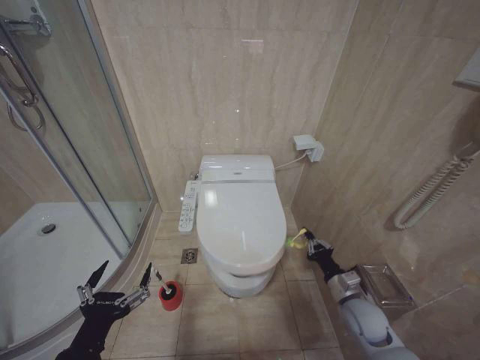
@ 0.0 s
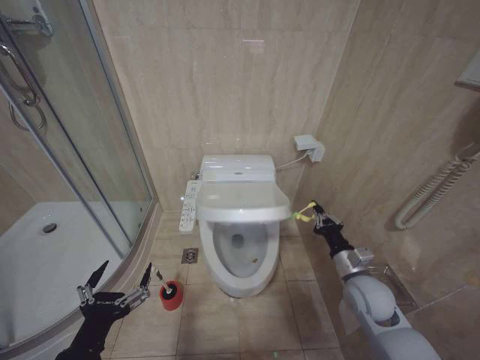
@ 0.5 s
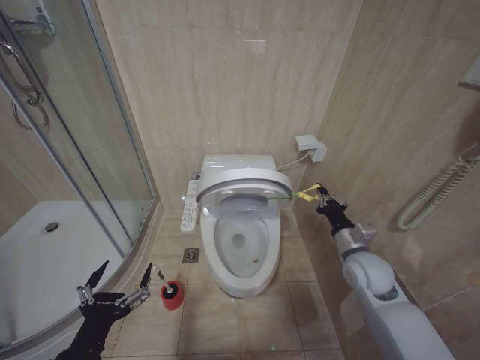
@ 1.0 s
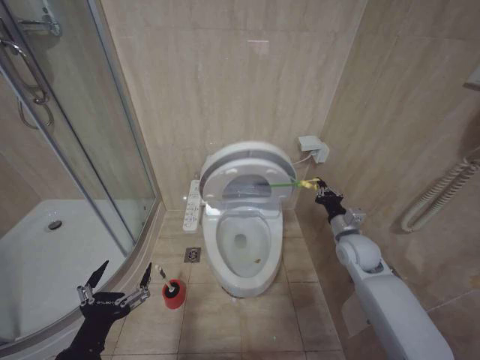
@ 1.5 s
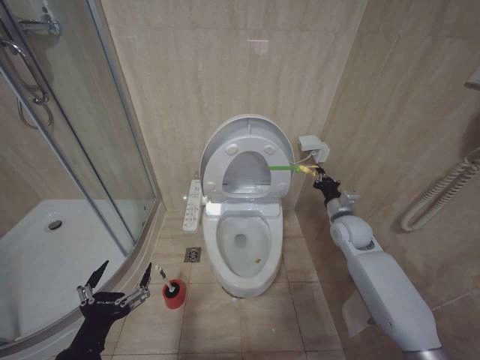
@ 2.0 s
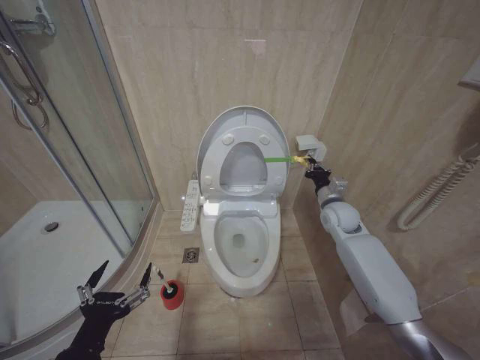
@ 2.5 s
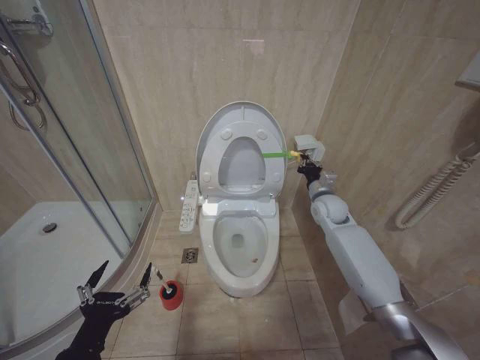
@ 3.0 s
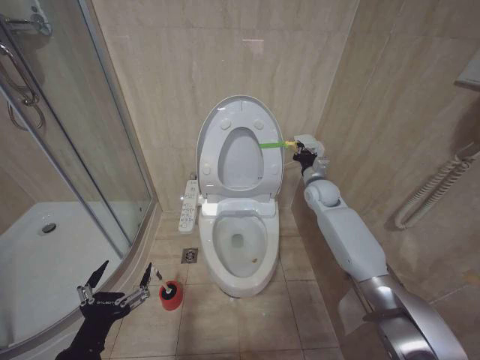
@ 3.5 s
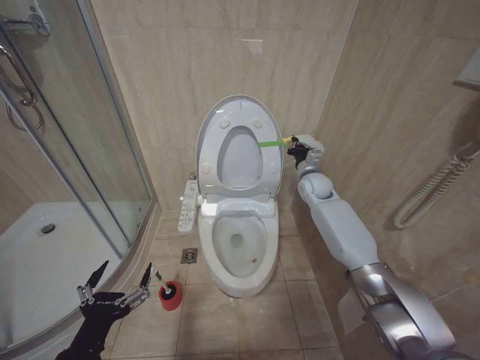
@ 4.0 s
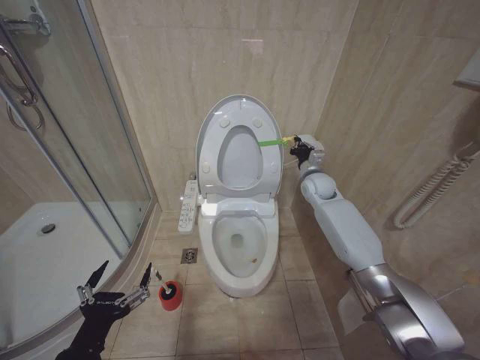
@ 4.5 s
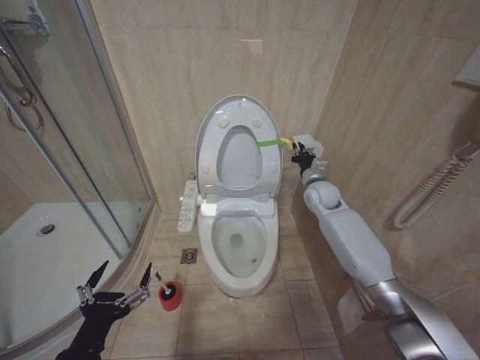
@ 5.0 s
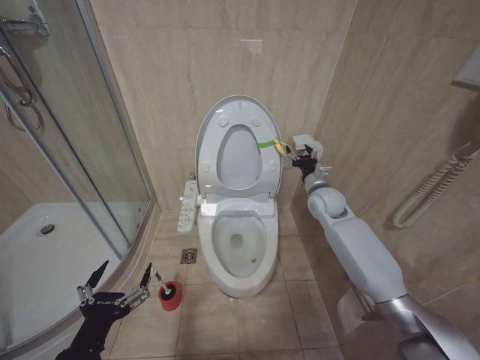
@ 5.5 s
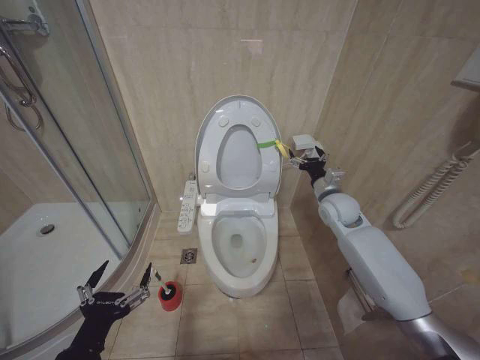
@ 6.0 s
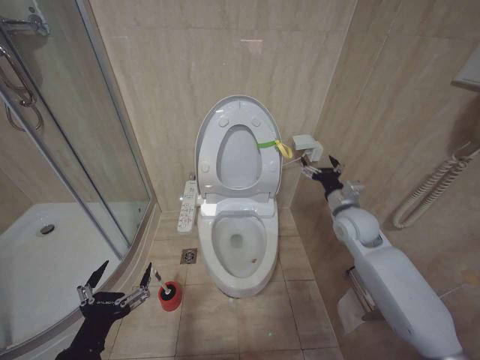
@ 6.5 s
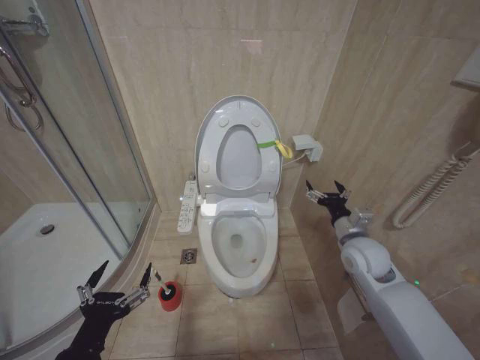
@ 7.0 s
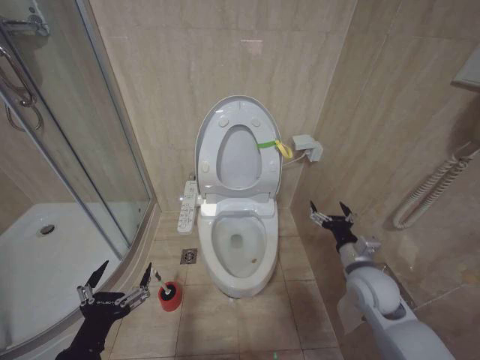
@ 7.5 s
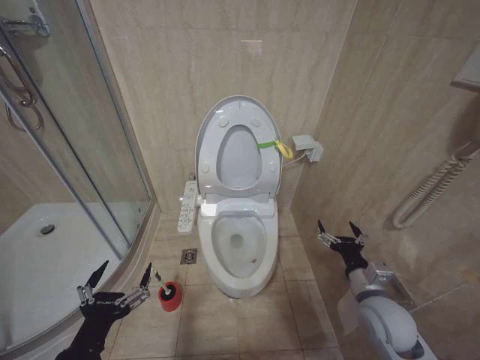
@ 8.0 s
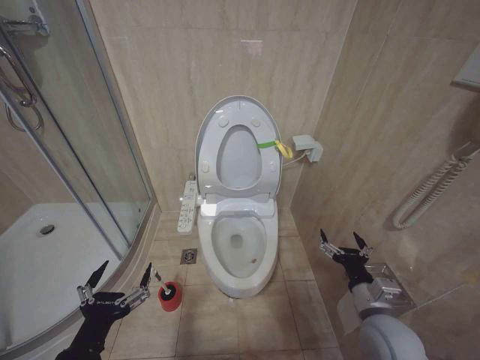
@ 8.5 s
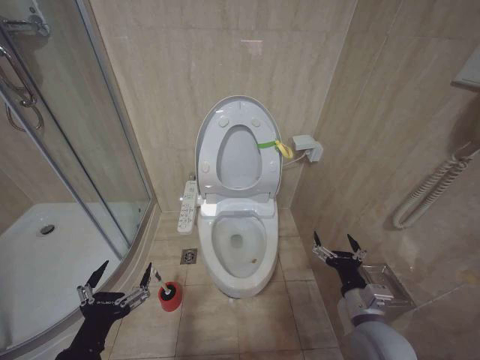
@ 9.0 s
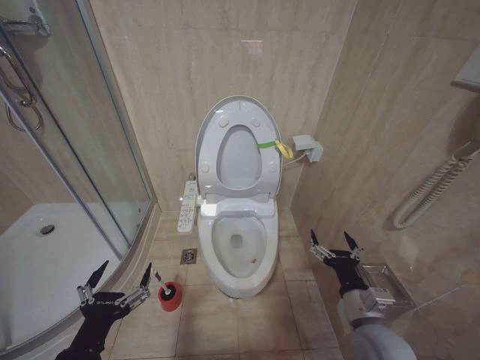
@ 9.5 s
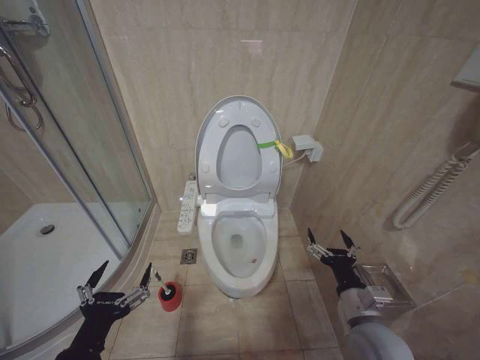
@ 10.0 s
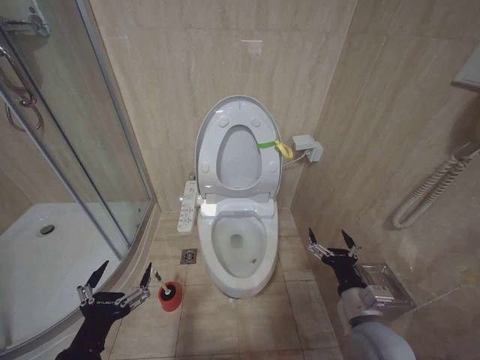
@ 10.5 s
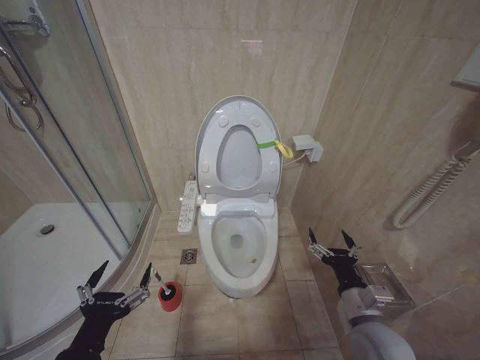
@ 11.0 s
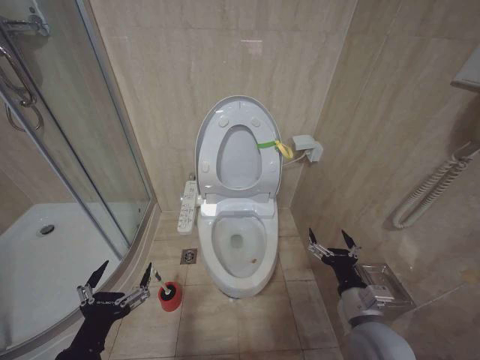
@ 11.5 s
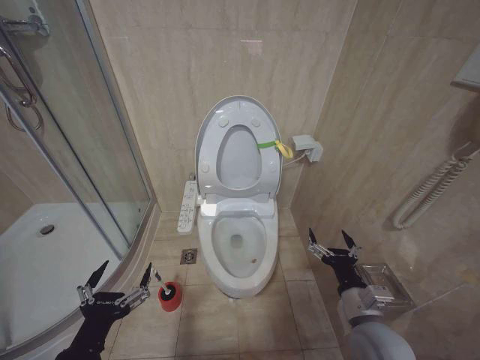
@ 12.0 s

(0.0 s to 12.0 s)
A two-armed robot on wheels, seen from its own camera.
Task of the whole recording: Open the toilet lid, clean the toilet bowl with a toilet brush, close the toilet lid, and flush.
0.0 s - 2.0 s: The right gripper moves forward and upward, roughly 20 cm.
2.0 s - 4.0 s: The right gripper travels forward, upward and to the left by roughly 15 cm.
4.0 s - 6.0 s: The right gripper is displaced backward by some 10 cm, and opens up.
6.0 s - 8.0 s: The right gripper shifts roughly 25 cm backward and downward.
8.0 s - 10.0 s: The right gripper travels backward by about 5 cm.
10.0 s - 12.0 s: Both grippers stay put.

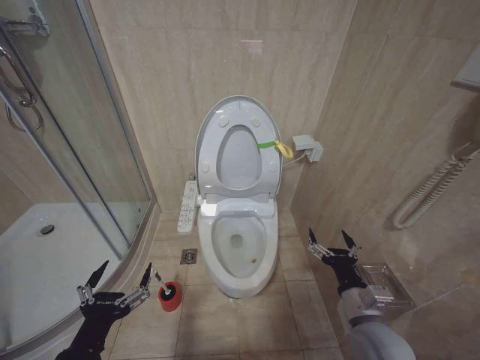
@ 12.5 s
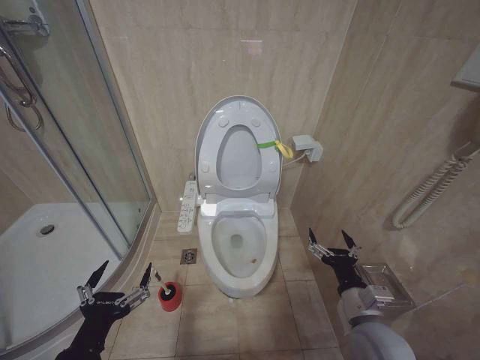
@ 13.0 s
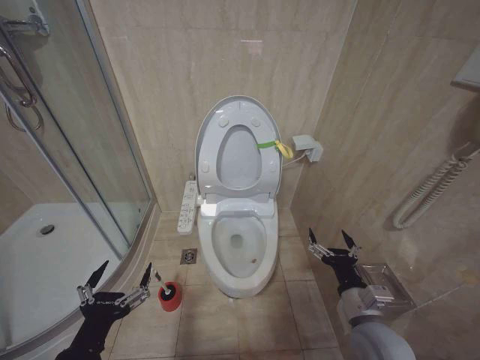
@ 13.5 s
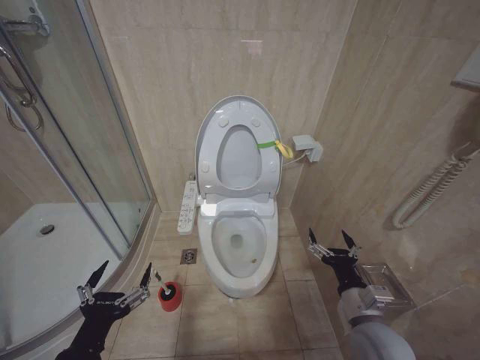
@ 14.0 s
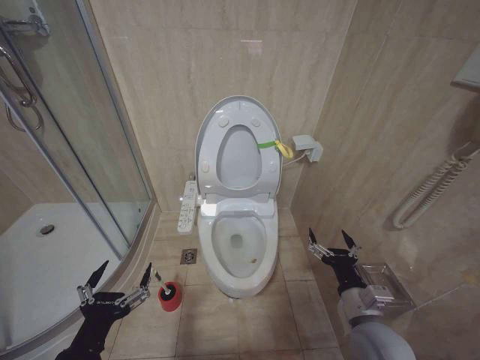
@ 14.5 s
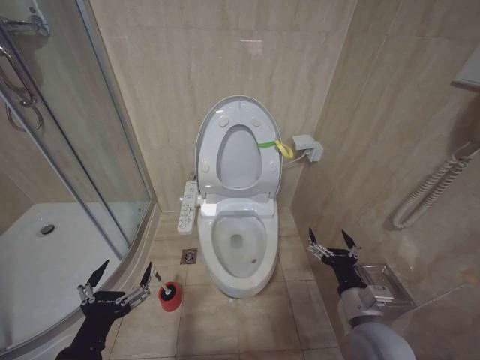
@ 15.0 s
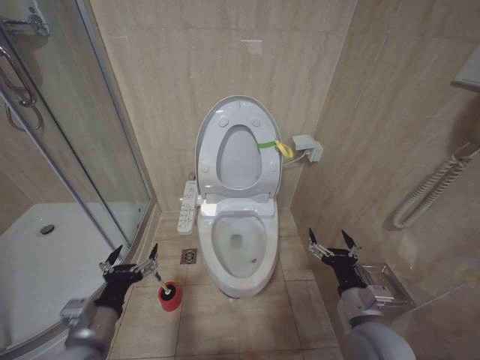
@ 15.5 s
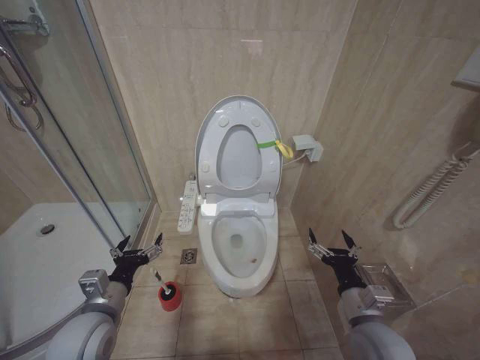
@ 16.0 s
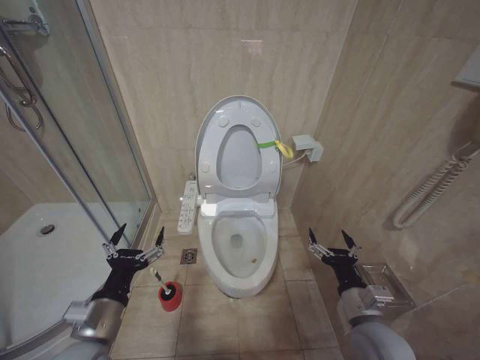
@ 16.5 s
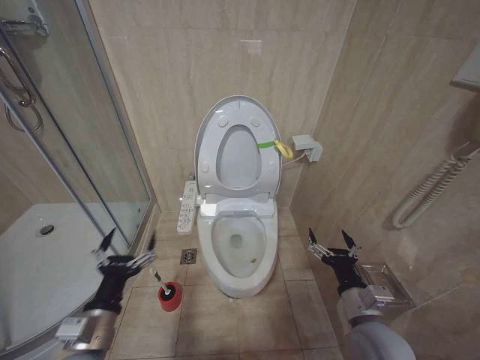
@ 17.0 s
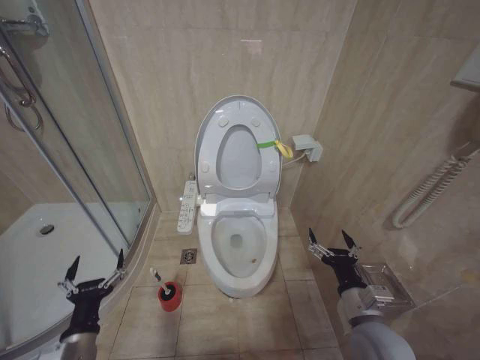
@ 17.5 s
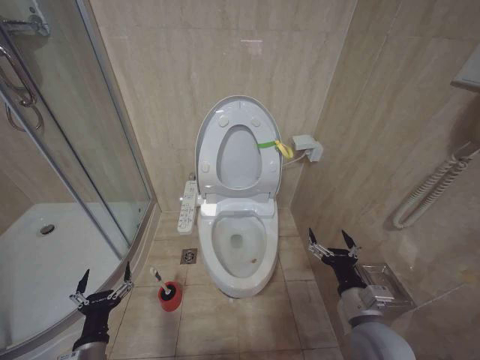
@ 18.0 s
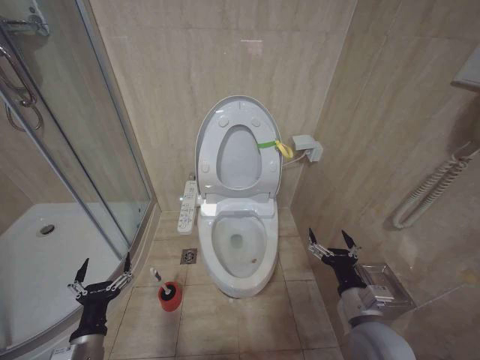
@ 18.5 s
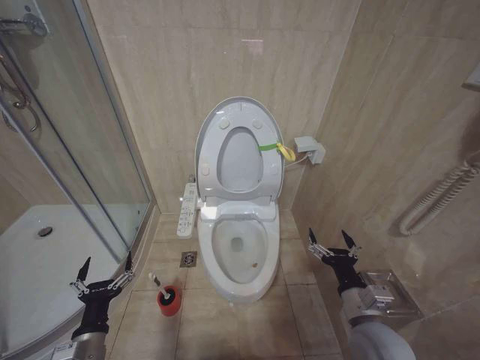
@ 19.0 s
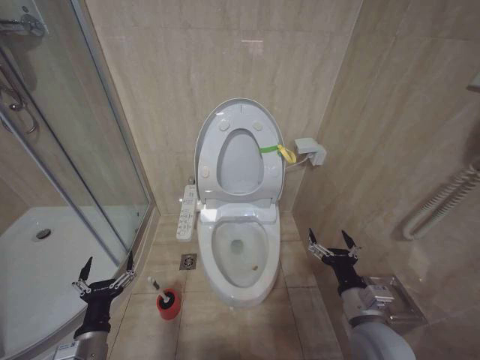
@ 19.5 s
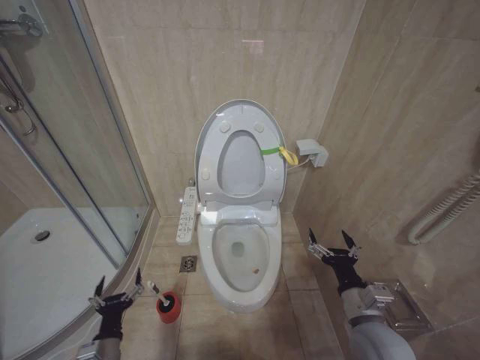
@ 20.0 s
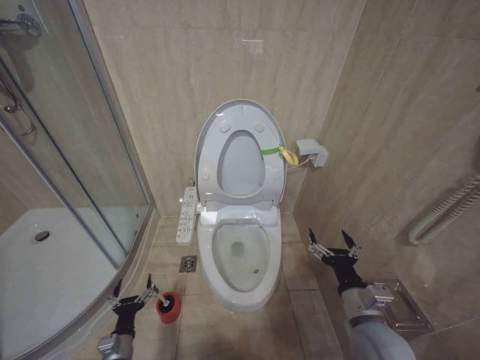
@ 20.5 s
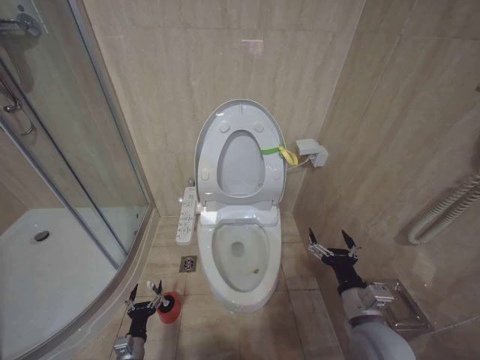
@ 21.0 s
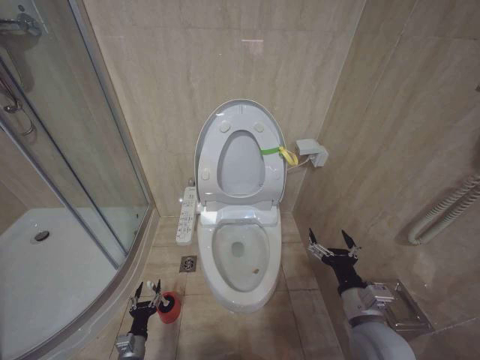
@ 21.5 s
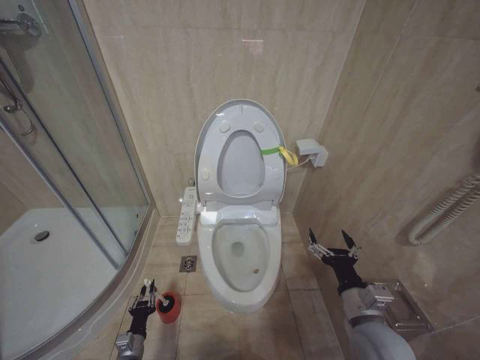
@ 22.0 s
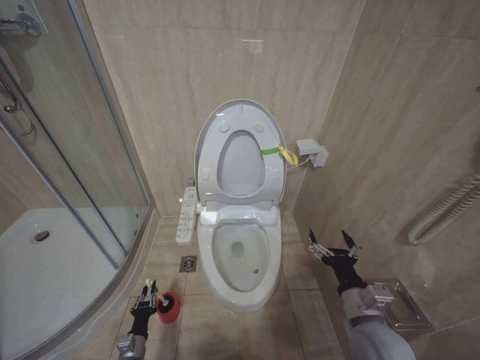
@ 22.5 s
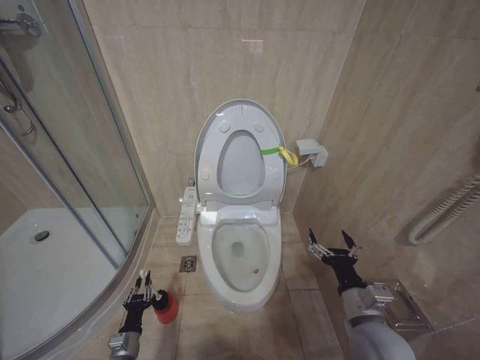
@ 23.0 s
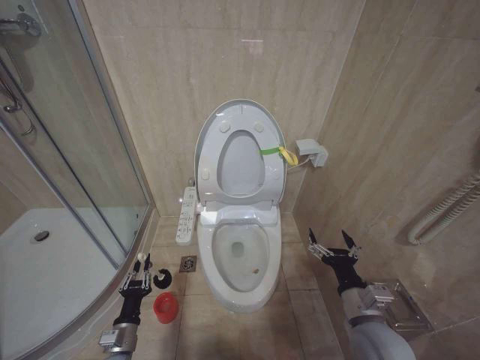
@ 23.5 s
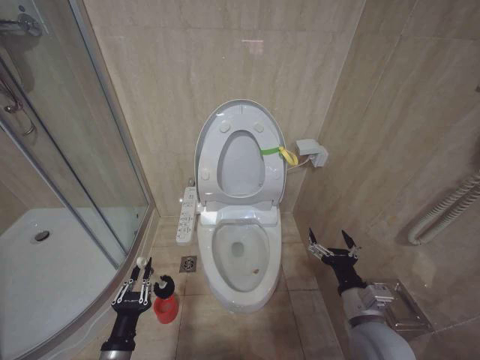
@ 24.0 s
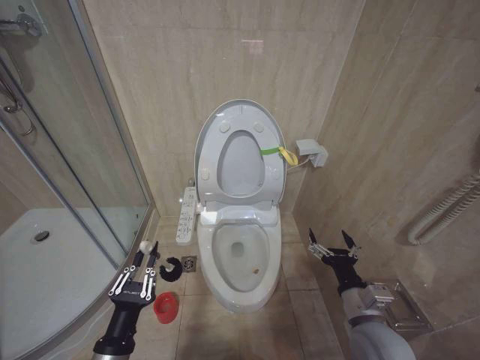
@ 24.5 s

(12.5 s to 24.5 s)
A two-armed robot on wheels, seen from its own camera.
Task of the whole recording: Open the toilet lid, clean the toilet bowl with a toilet brush, close the toilet lid, and flush.
12.5 s - 14.5 s: Both grippers stay put.
14.5 s - 16.5 s: The left gripper goes some 10 cm forward.
16.5 s - 18.5 s: The left gripper heads downward, covering some 10 cm.
18.5 s - 20.5 s: The left gripper heads downward, covering approximately 15 cm.
20.5 s - 22.5 s: The left gripper travels downward by about 10 cm, and closes.
22.5 s - 24.5 s: The left gripper travels upward by about 30 cm.

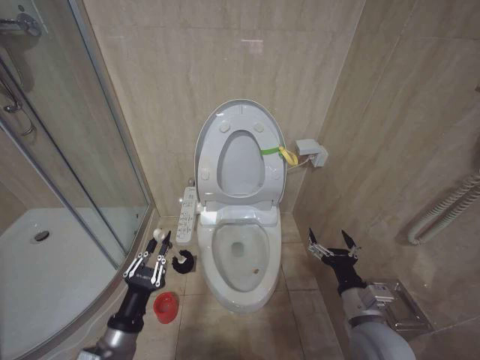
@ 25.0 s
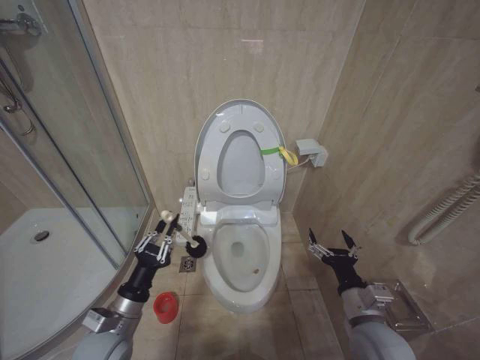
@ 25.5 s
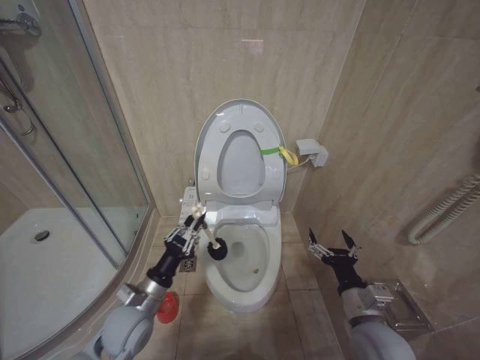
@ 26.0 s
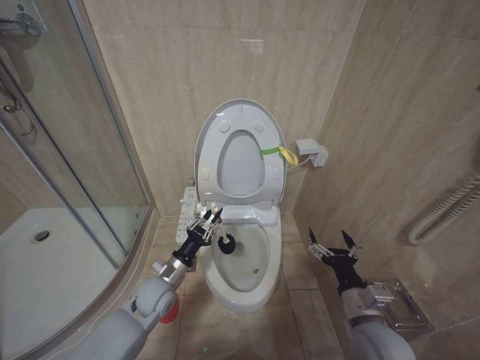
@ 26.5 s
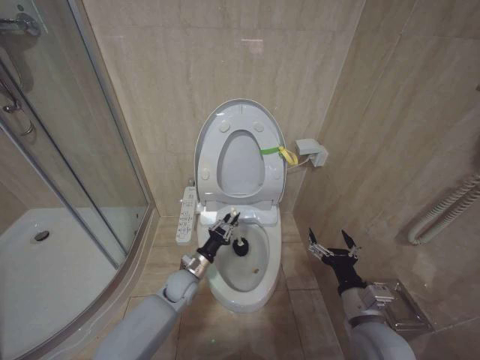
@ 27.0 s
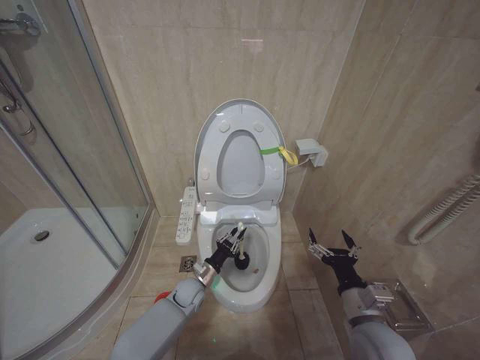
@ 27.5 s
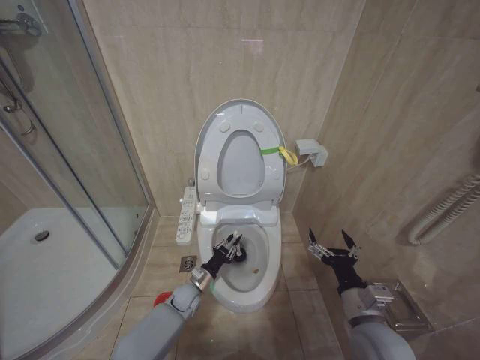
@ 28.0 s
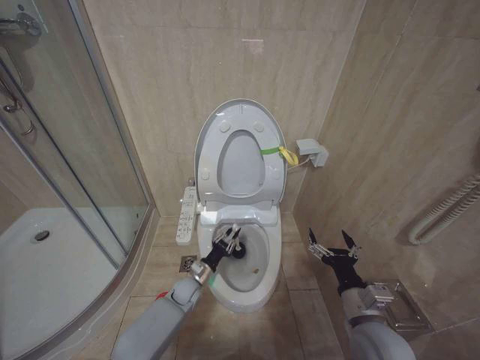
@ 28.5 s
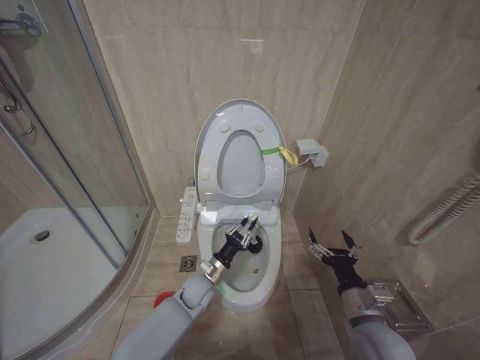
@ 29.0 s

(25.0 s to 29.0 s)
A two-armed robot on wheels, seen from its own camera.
Task of the whole recording: Open the toilet lid, clean the toilet bowl with a toilet brush, close the toilet lid, and flush.
25.0 s - 27.0 s: The left gripper is displaced forward and downward by about 25 cm.
27.0 s - 29.0 s: The left gripper is displaced to the right by roughly 5 cm, and moves about 10 cm downward and comes back.
